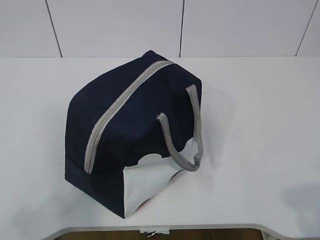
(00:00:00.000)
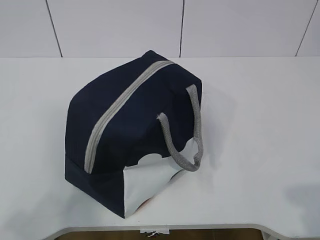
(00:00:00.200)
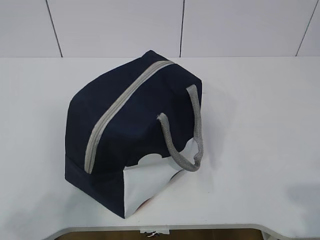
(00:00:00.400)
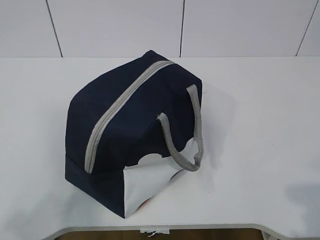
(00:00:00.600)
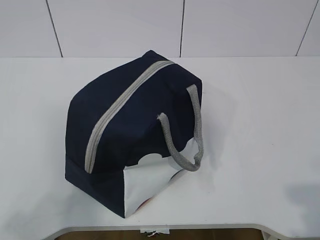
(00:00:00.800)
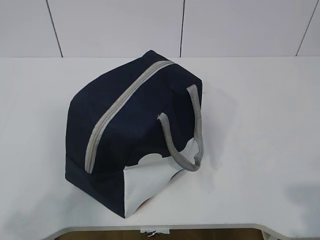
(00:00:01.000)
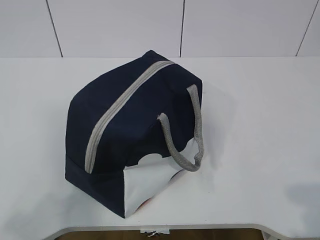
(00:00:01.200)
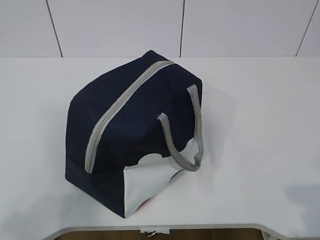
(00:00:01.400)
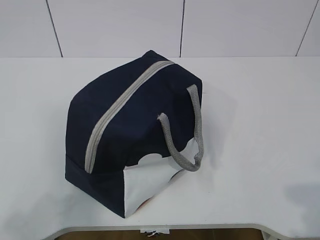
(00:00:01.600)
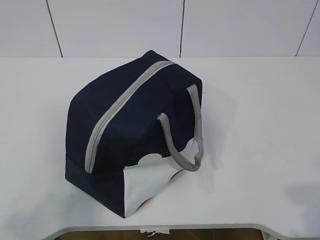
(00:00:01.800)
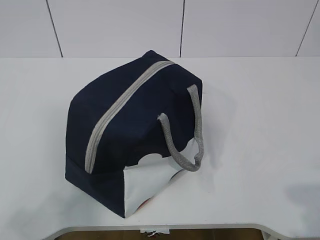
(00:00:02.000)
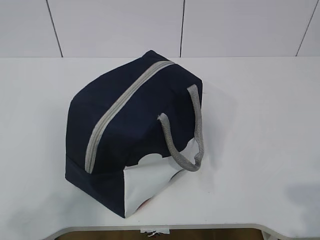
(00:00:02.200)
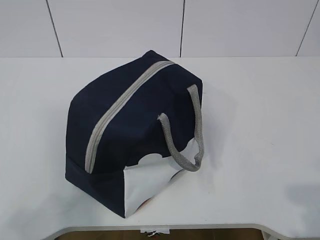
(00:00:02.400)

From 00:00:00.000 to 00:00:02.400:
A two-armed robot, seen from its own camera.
From 00:00:01.200 to 00:00:02.400: Both grippers stay put.
